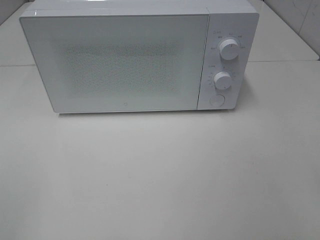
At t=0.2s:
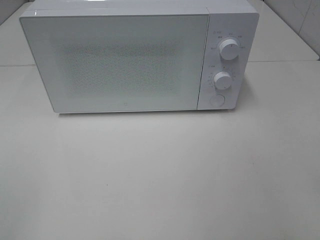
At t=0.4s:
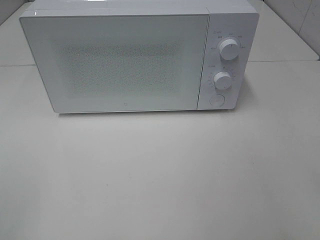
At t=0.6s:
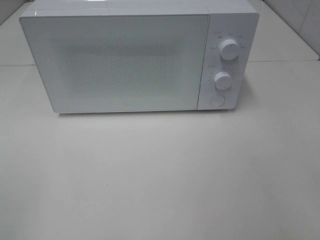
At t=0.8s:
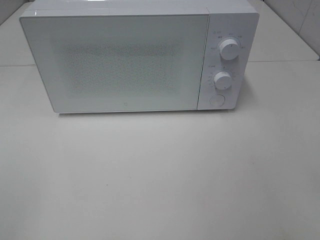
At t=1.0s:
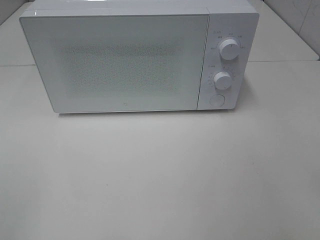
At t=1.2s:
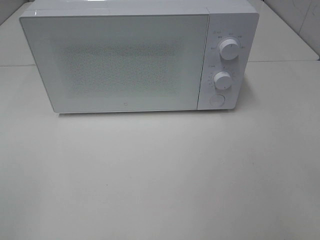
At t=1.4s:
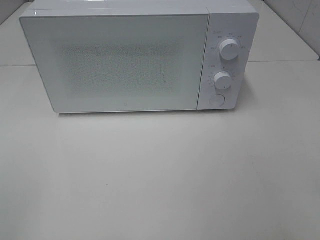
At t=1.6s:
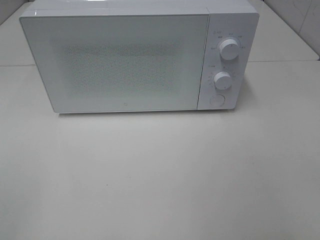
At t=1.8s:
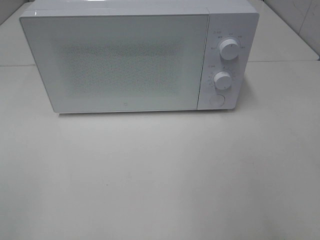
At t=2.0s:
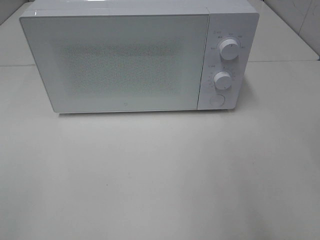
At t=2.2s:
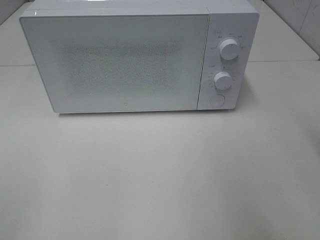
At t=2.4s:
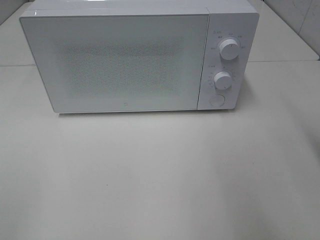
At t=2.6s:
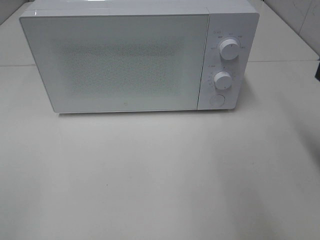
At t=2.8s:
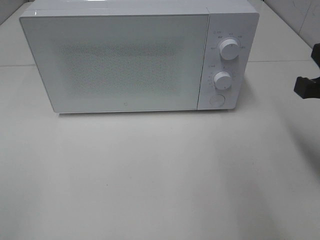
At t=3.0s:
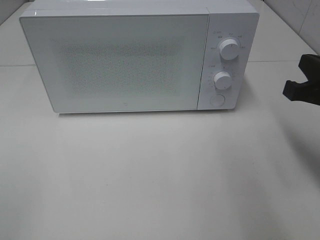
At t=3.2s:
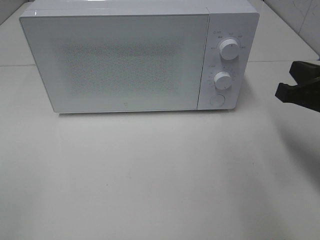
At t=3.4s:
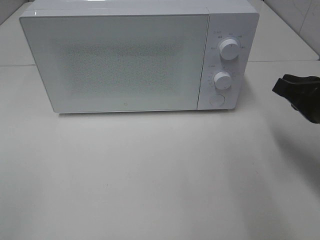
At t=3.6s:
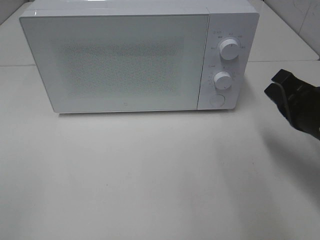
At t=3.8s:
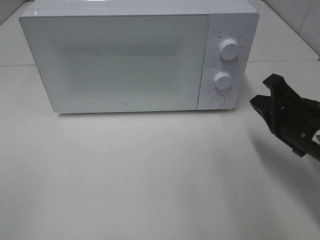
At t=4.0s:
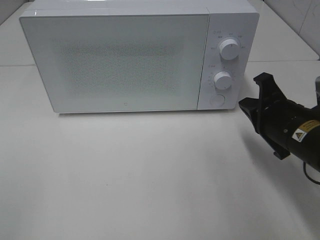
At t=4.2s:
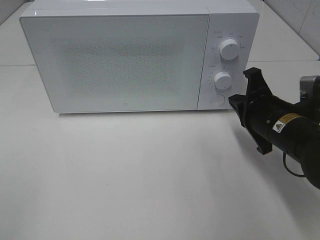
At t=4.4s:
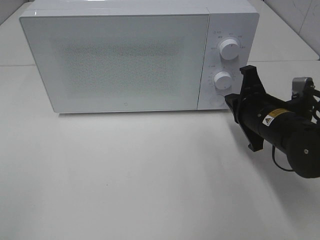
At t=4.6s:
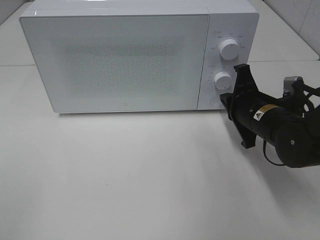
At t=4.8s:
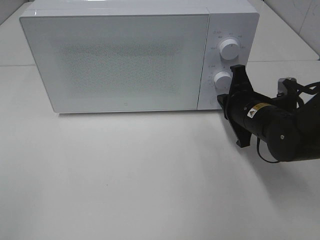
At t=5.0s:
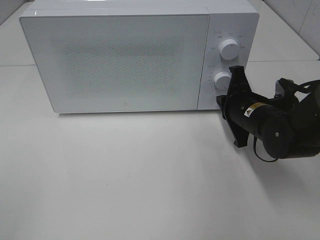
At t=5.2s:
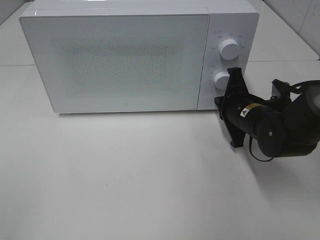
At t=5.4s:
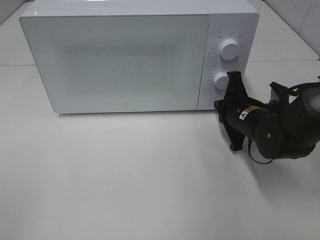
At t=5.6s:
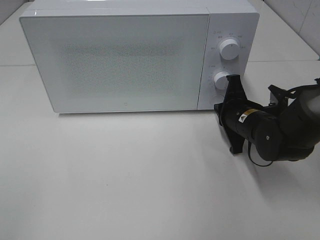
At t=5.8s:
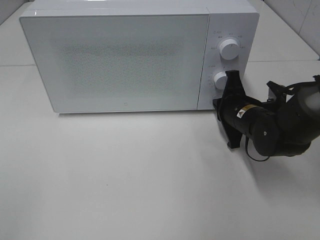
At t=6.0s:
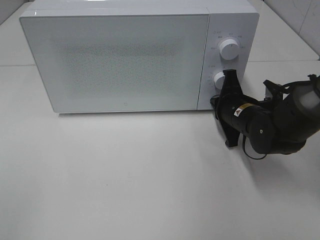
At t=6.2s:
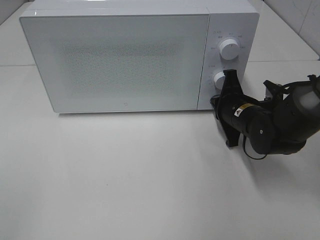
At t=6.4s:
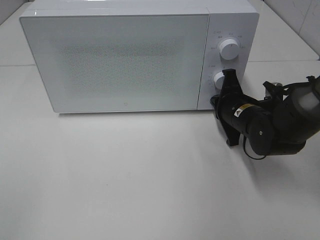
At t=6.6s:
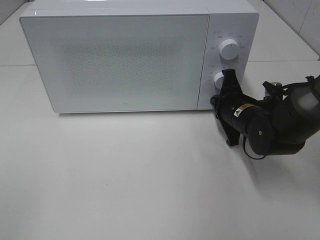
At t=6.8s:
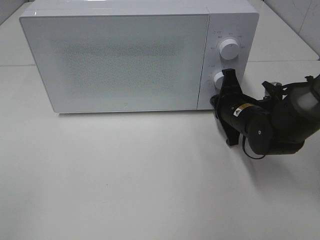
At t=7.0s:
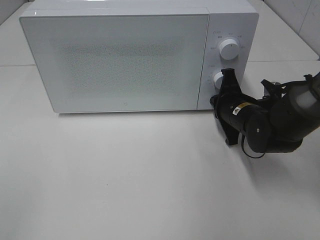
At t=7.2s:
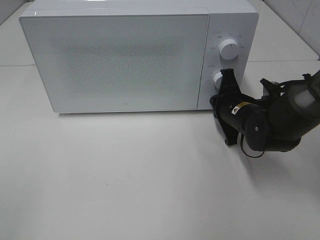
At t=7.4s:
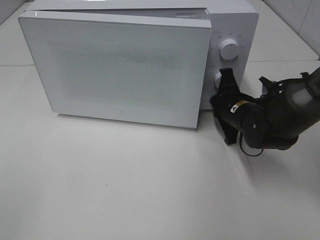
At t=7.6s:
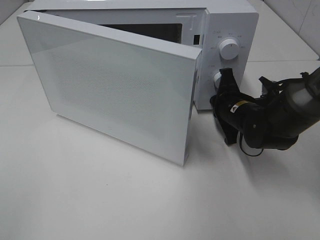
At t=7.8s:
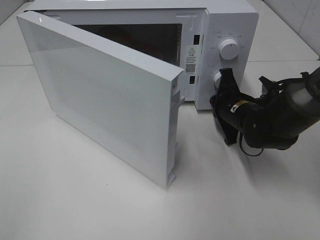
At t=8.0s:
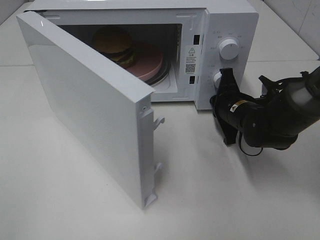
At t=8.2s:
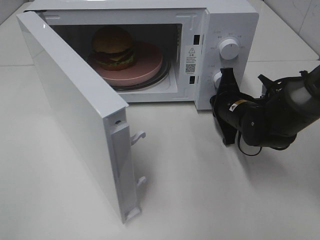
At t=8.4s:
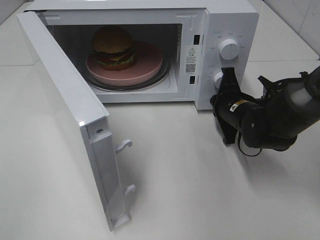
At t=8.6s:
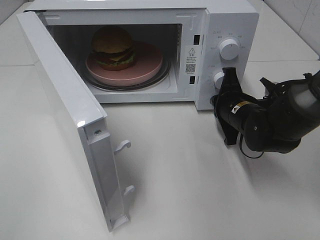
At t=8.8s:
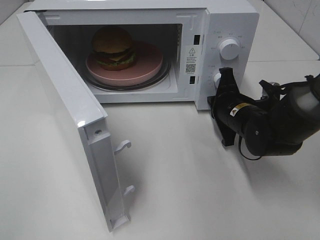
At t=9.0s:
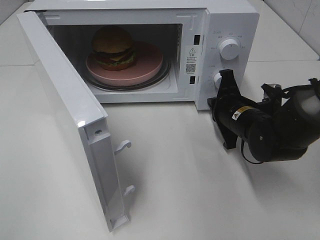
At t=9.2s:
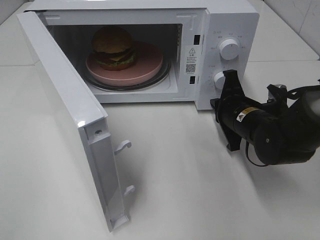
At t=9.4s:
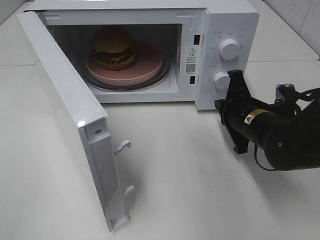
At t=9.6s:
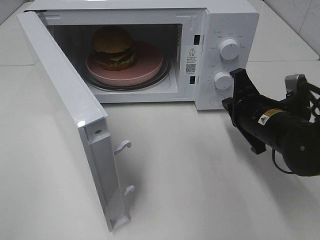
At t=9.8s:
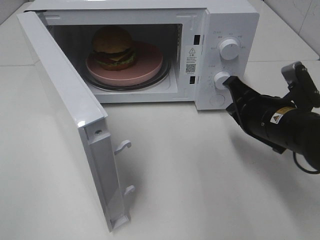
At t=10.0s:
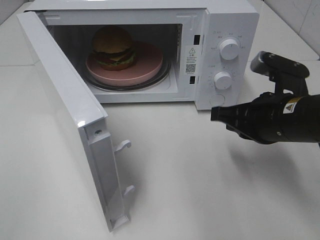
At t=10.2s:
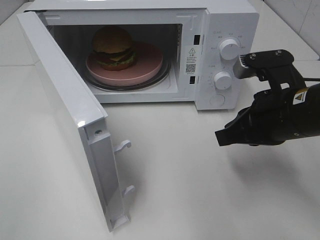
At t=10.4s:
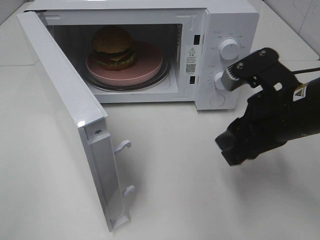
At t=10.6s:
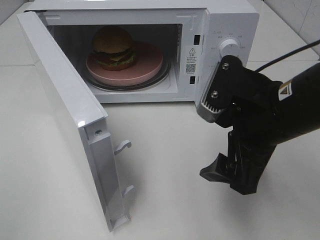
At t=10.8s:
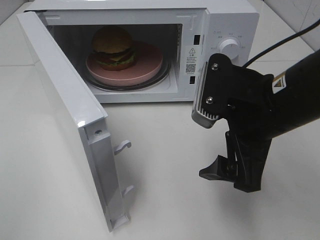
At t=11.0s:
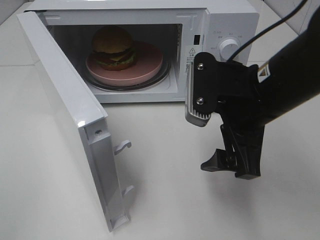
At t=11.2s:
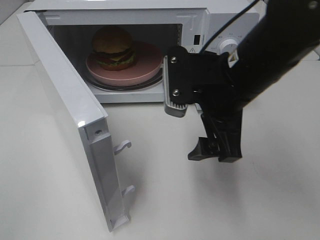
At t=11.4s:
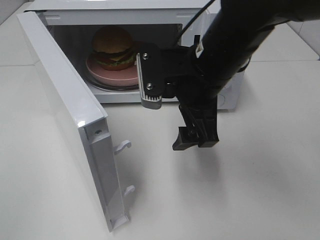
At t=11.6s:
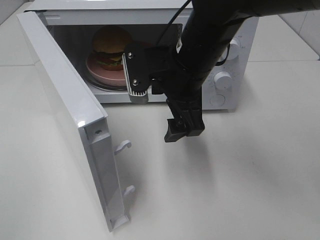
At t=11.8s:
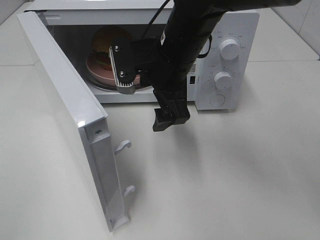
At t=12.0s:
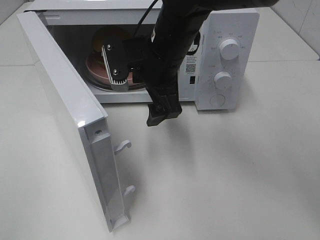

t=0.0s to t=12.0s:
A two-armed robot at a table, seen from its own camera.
Task of the whole recording: Heat the burger.
Step, t=0.0s to t=8.8s: Right hand: press the switch.
t=1.6s to t=3.0s: The right gripper moves forward and downward, some 20 cm, and closes its fingers.
t=3.0s to t=4.4s: The right gripper travels downward, forward and to the left by approximately 15 cm.
t=4.4s to t=6.0s: The right gripper goes roughly 5 cm forward.
t=6.0s to t=7.6s: Both grippers stay put.
t=9.0s to t=10.4s: The right gripper is displaced upward and backward by some 15 cm, and opens its fingers.
t=10.4s to t=12.0s: The right gripper moves to the left and forward, about 20 cm, and opens its fingers.

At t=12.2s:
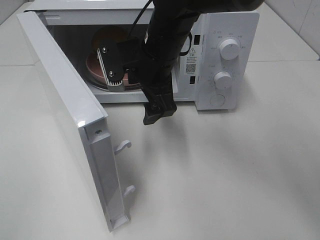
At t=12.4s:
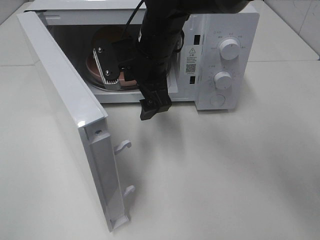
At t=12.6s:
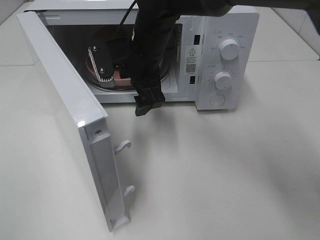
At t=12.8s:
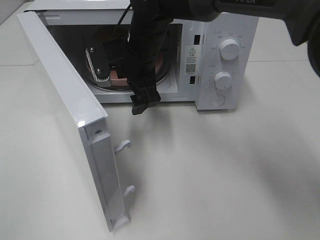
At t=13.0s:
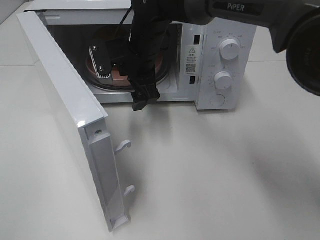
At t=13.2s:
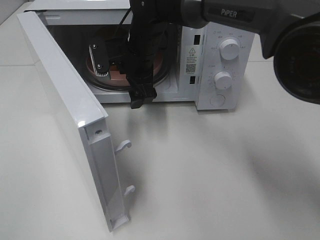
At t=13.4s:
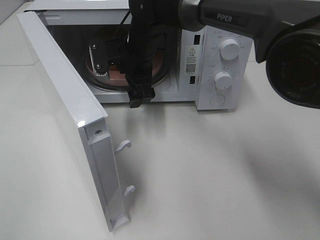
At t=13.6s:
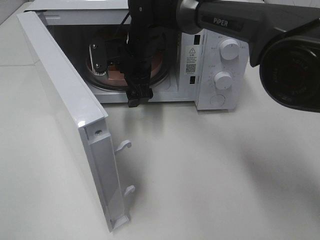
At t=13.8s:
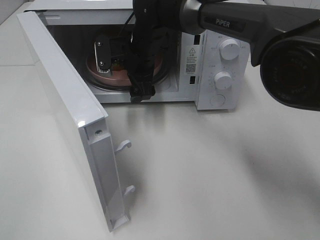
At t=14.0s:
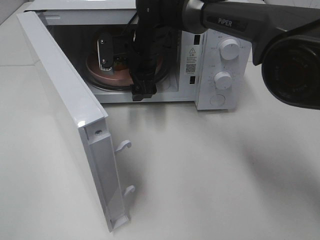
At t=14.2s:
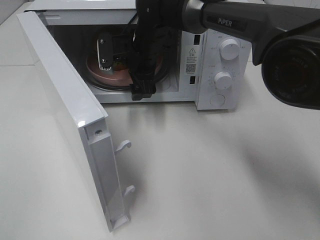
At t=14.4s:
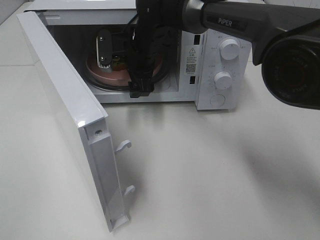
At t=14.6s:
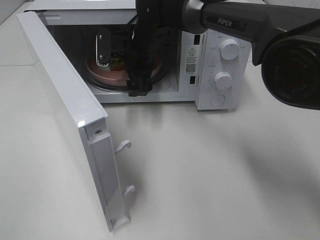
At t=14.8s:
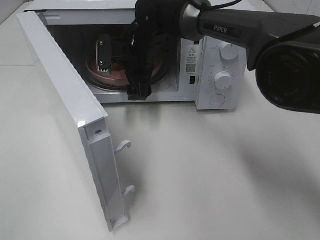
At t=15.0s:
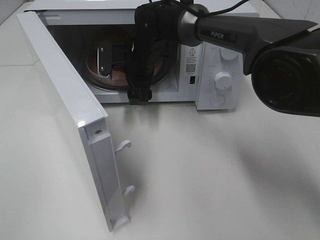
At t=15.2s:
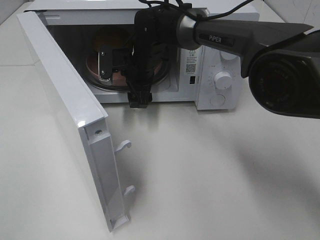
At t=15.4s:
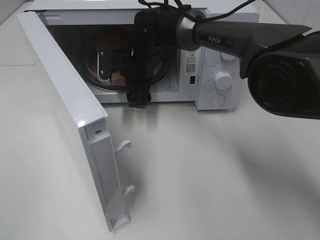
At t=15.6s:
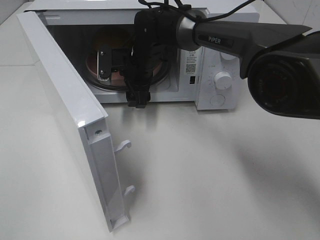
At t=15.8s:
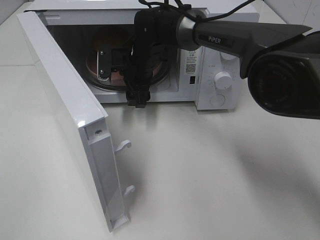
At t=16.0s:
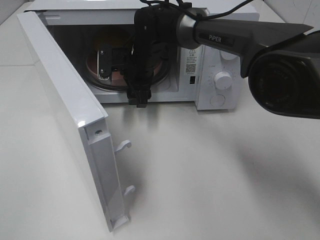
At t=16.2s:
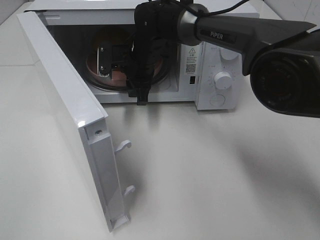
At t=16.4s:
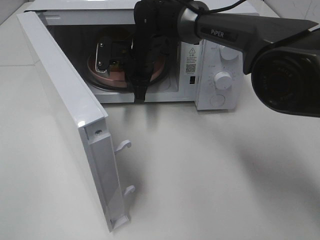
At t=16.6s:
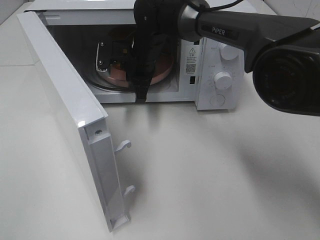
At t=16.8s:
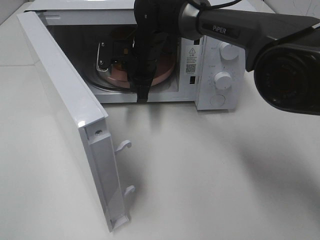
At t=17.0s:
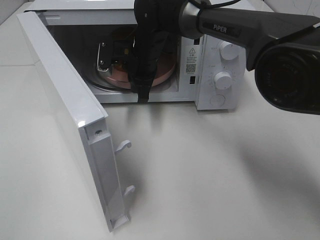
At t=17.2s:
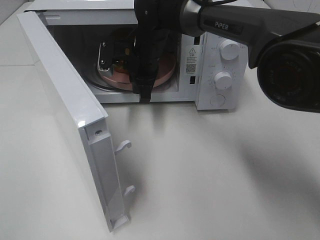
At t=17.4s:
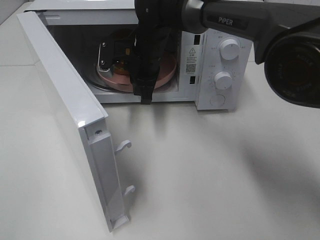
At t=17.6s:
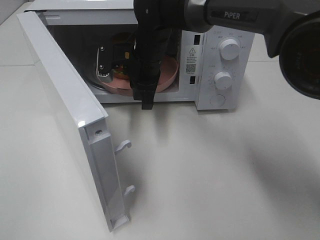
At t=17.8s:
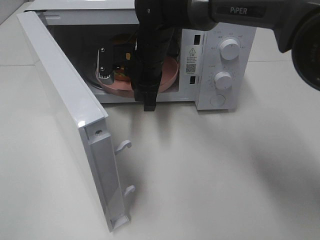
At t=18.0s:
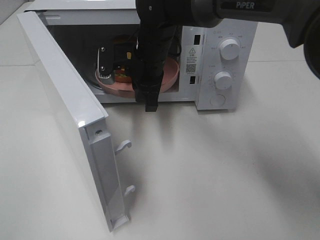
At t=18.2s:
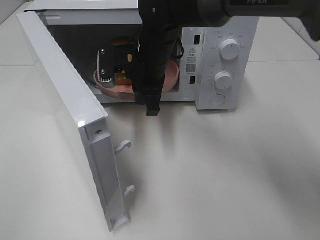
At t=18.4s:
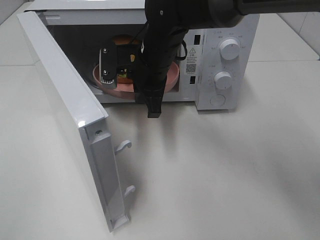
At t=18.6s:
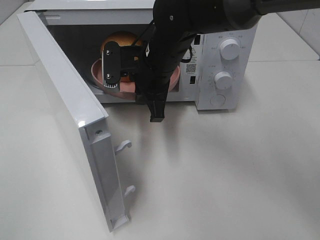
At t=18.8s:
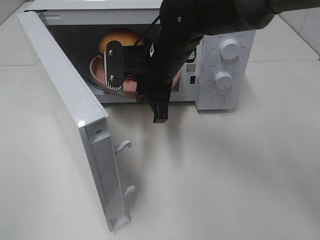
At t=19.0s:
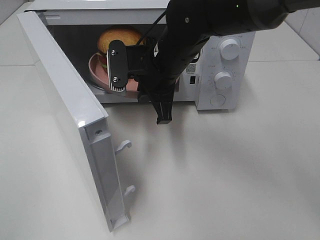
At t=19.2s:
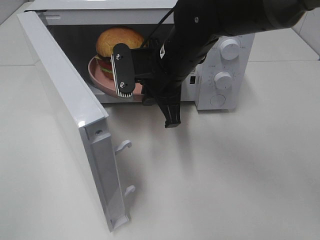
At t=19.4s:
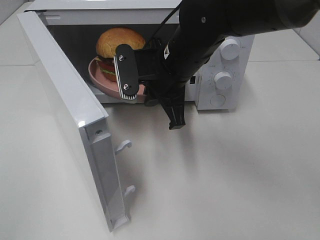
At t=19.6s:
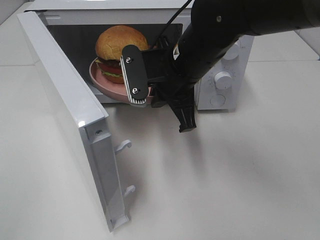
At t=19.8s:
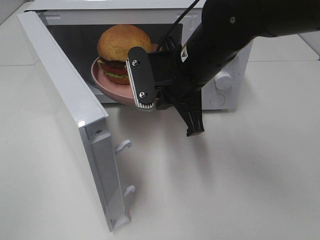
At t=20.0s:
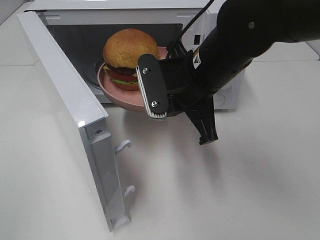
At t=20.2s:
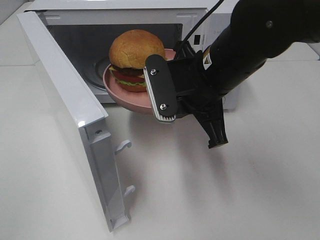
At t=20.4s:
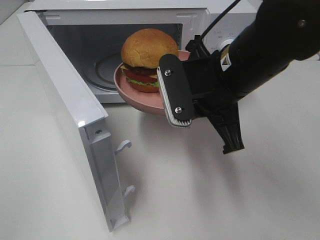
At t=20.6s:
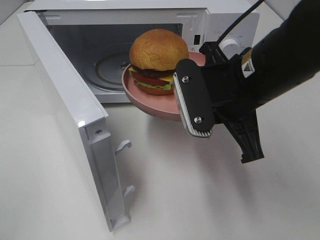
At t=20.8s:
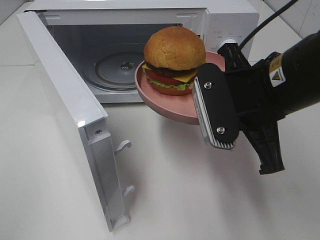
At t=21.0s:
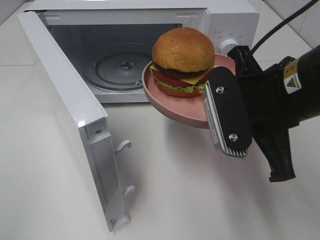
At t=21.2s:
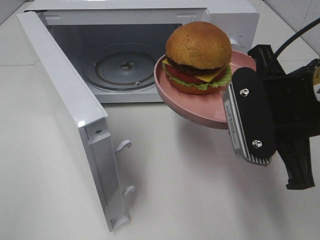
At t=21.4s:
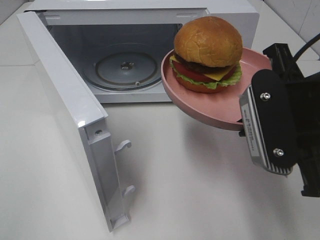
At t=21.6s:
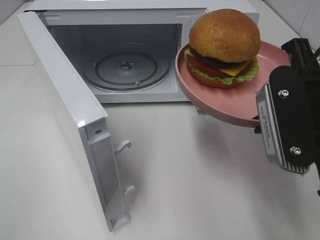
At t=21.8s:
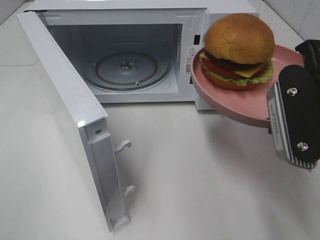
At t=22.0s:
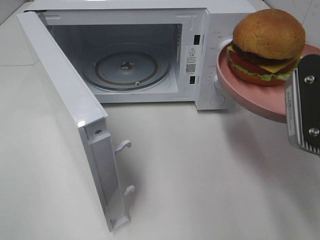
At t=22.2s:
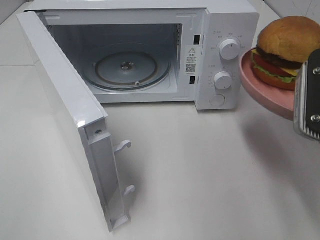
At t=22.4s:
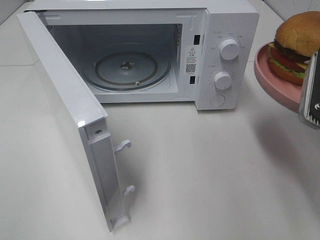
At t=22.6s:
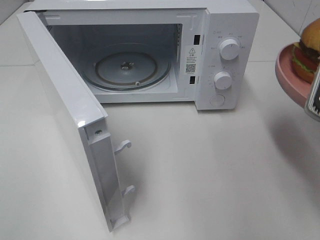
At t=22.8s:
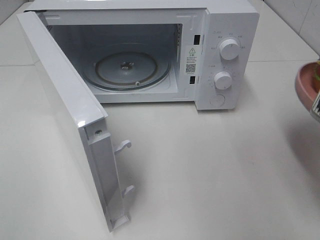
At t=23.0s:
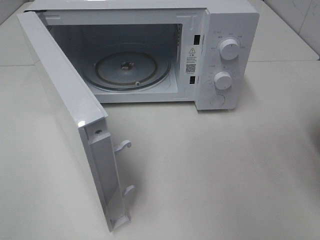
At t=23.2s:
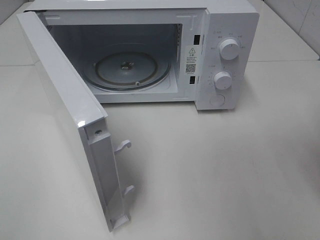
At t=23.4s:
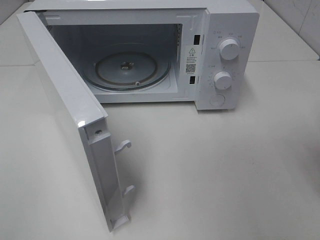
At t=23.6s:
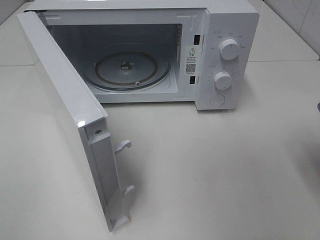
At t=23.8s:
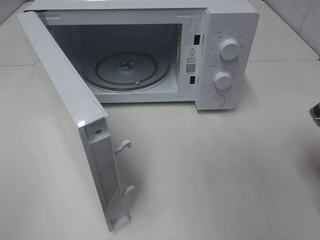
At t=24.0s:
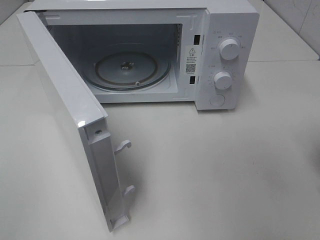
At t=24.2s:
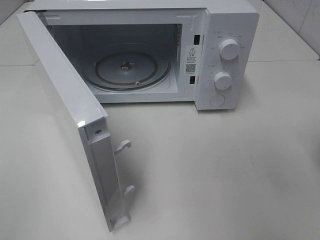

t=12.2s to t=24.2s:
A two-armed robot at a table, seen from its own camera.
Task of the whole recording: Heat the burger.
Step, t=12.2s to t=16.4s: Right hand: grab the plate with the hamburger.
t=12.2s to t=13.8s: The right gripper shifts roughly 10 cm forward.
t=13.8s to t=15.2s: The grippers move only a little.
t=15.2s to t=16.6s: The right gripper closes.
t=16.6s to t=18.2s: The right gripper heads backward, covering about 5 cm.
t=18.2s to t=19.8s: The right gripper goes roughly 10 cm backward and to the right.
t=19.8s to t=21.2s: The right gripper heads backward and to the right, covering some 15 cm.
t=21.2s to t=22.6s: The right gripper shifts about 10 cm to the right.
t=22.6s to t=24.2s: The right gripper travels downward and to the right by approximately 10 cm.
